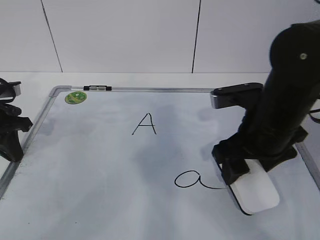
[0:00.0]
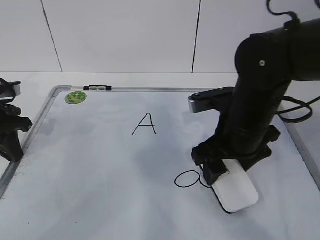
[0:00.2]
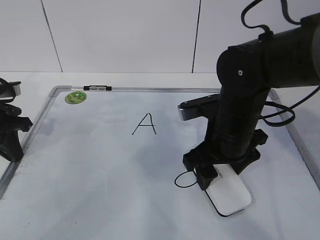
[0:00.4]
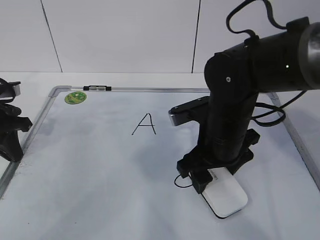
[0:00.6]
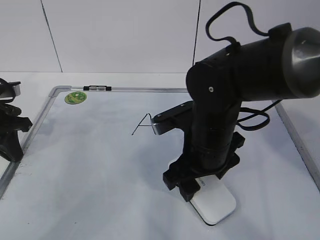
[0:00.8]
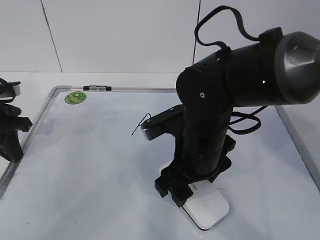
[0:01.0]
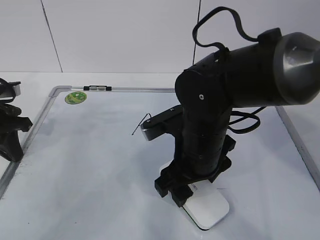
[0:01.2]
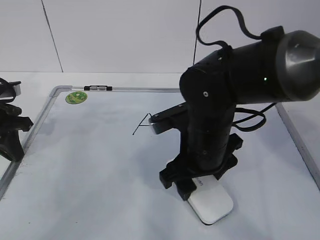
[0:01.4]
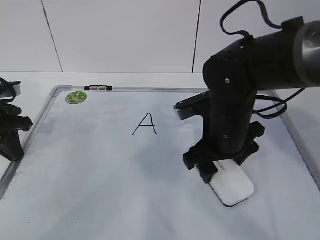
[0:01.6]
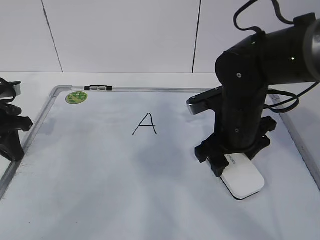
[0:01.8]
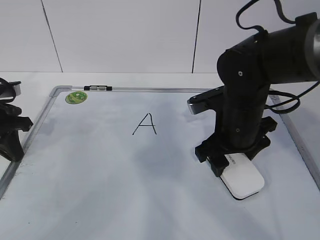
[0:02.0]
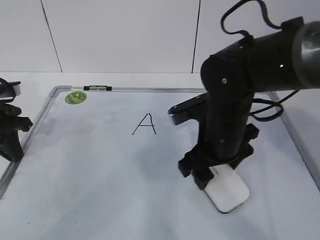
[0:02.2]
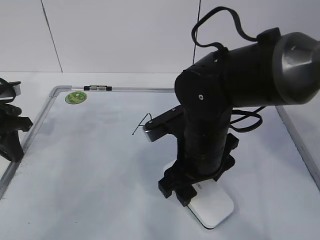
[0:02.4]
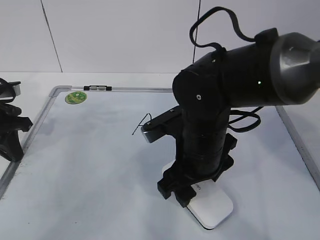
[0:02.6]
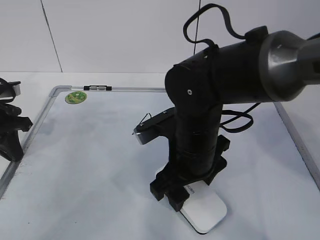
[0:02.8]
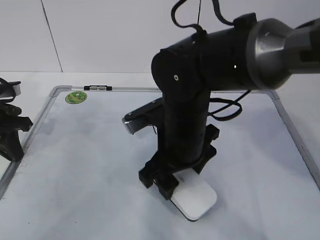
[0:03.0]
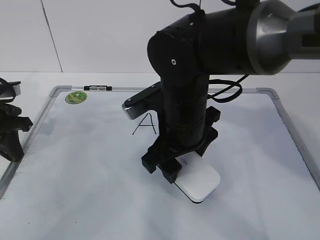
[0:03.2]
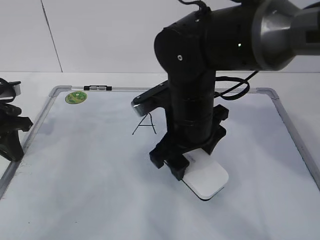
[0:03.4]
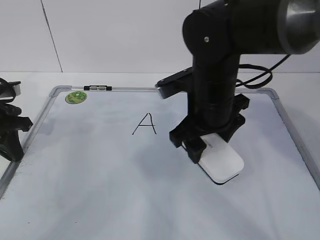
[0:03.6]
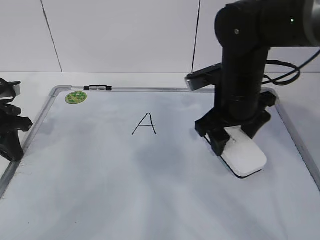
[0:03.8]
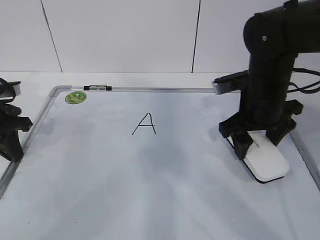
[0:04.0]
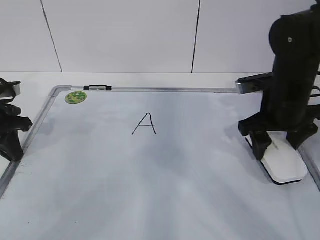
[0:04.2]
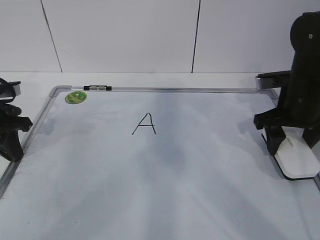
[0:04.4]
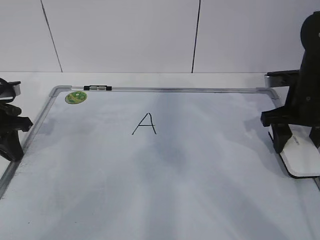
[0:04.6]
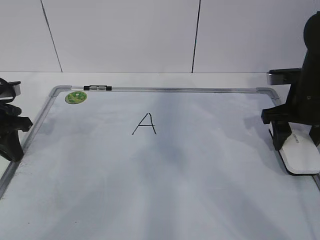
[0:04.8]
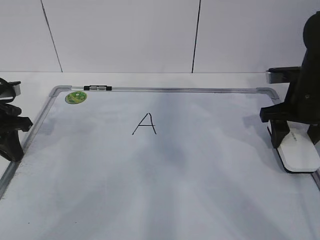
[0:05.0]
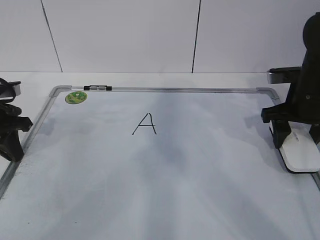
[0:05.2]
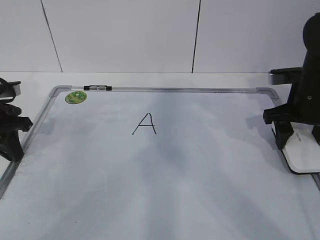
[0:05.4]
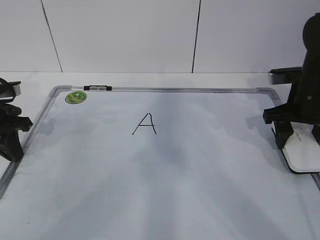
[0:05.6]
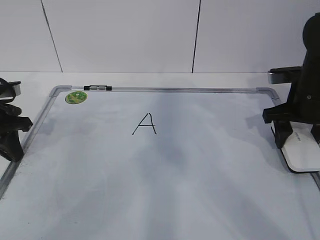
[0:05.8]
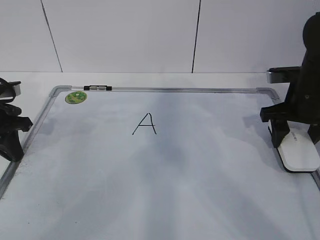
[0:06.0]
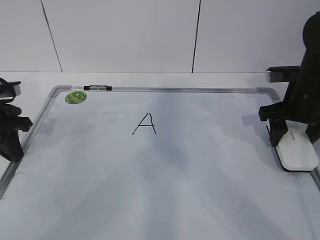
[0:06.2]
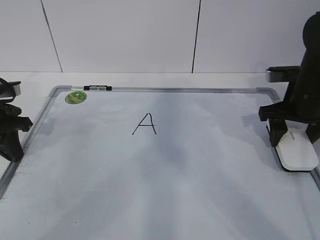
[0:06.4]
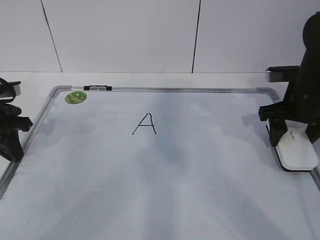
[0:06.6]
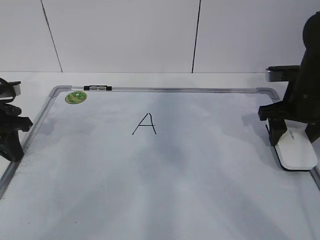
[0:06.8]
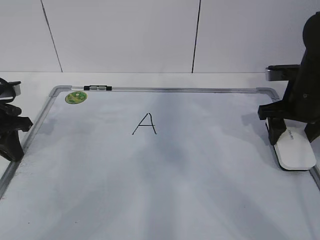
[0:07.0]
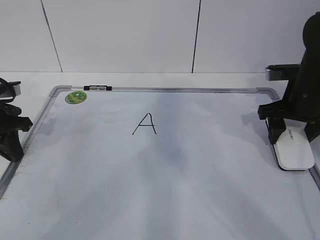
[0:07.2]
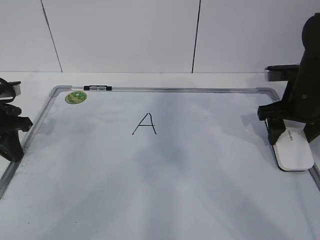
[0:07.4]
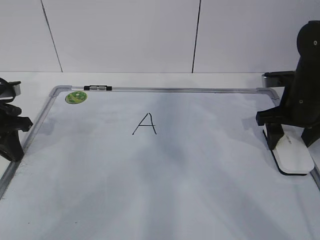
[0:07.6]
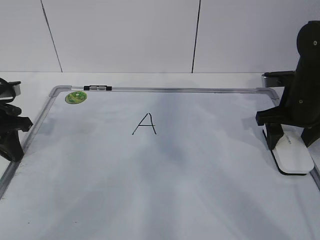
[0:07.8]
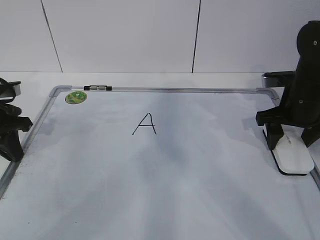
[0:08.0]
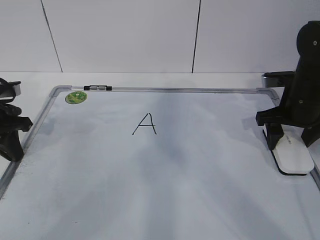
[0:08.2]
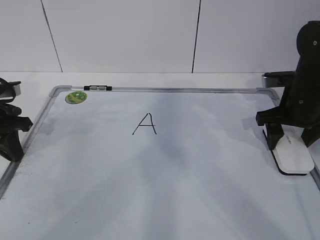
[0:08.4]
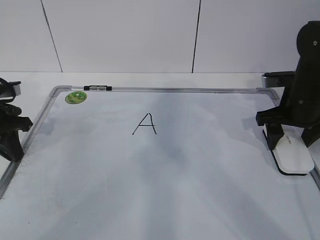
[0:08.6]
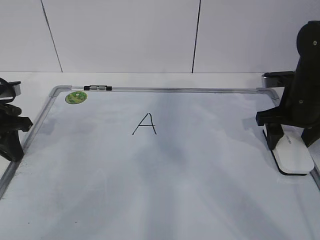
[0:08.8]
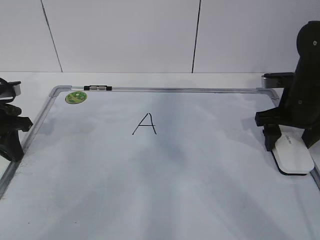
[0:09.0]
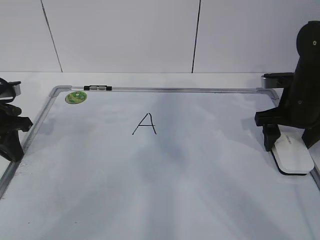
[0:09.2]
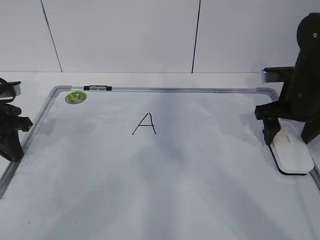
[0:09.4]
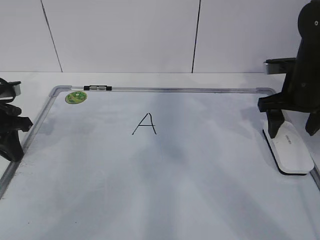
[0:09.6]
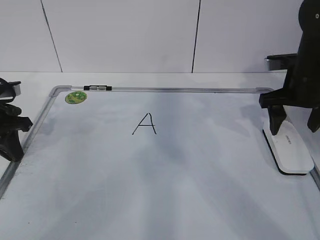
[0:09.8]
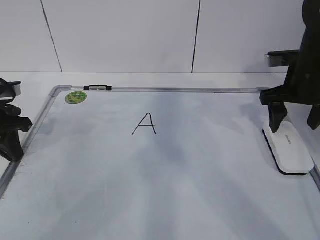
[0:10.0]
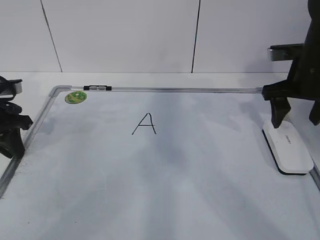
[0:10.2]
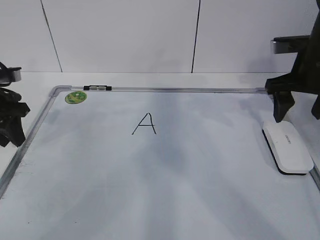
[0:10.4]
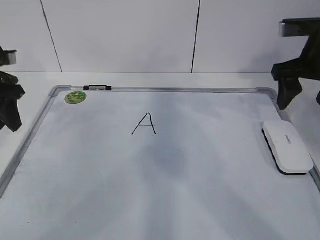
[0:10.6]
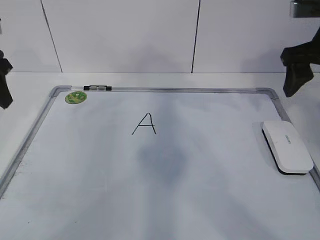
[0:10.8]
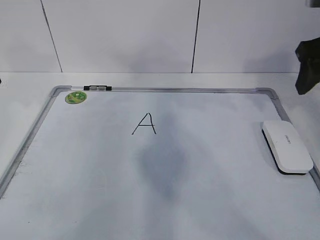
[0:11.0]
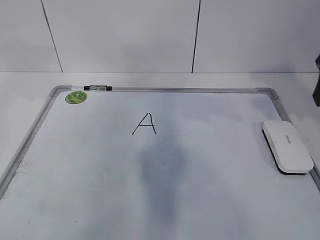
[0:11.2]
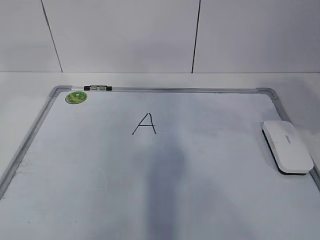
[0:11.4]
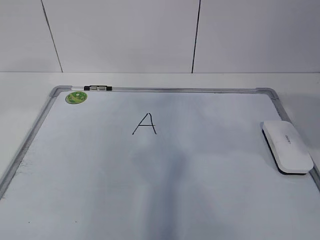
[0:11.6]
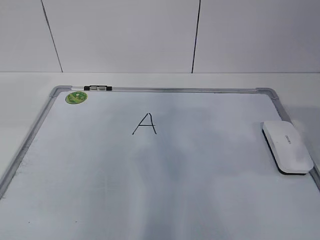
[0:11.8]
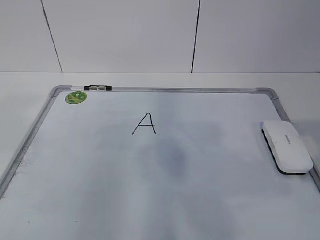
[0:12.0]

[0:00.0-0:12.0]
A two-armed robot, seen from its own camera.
Task of the whole recording: pick up the eraser on the blackboard and erase the letter "a".
Step, 0:00.0 to 0:02.0: Put down the eraser with your right hand.
0:00.0 to 0:01.6: The right gripper moves to the left, roughly 5 cm.
0:01.6 to 0:03.0: The right gripper is displaced to the left by about 5 cm.
0:03.0 to 0:04.4: The right gripper shifts approximately 20 cm to the right.
0:04.4 to 0:07.6: The grippers move only a little.
0:07.6 to 0:09.0: Both grippers stay put.
0:09.0 to 0:10.4: The left gripper opens up. The right gripper travels upward by roughly 5 cm.
0:10.4 to 0:12.0: The right gripper goes some 25 cm backward, and closes. Meanwhile the left gripper moves backward and upward, some 25 cm.

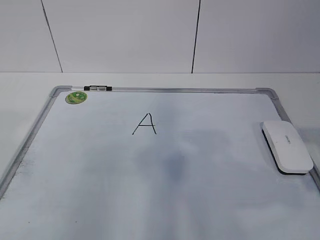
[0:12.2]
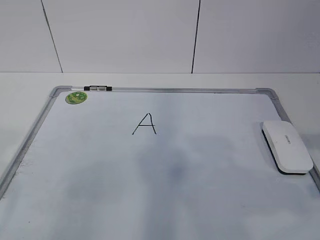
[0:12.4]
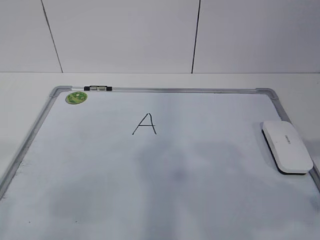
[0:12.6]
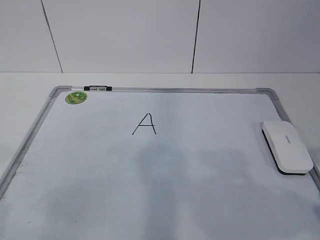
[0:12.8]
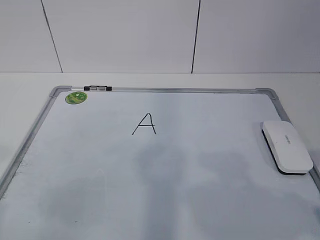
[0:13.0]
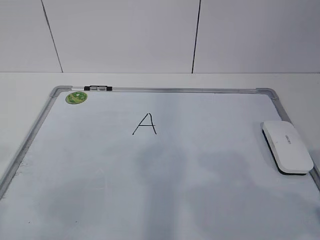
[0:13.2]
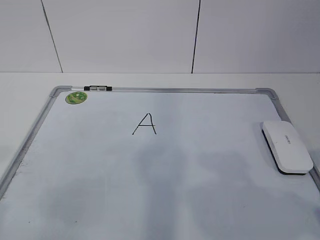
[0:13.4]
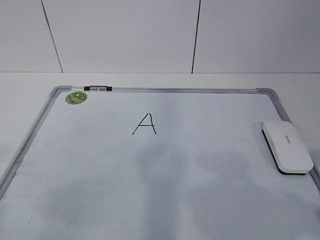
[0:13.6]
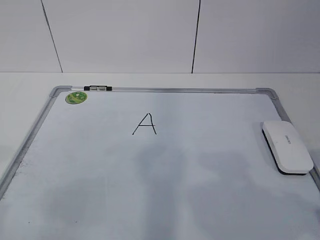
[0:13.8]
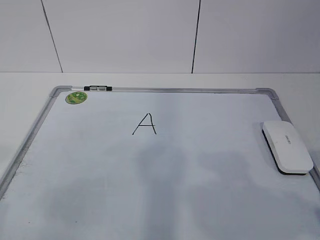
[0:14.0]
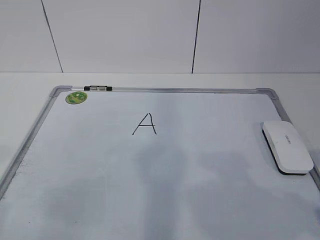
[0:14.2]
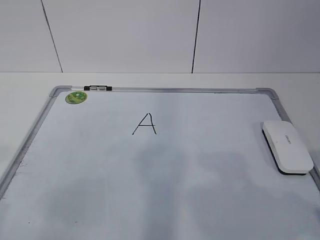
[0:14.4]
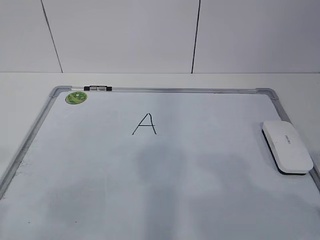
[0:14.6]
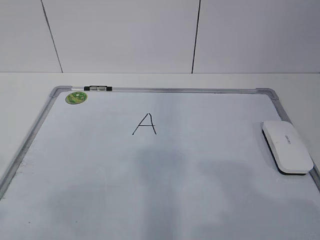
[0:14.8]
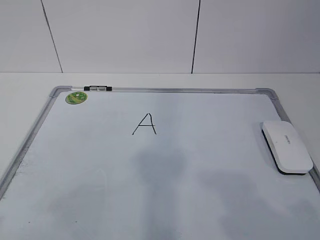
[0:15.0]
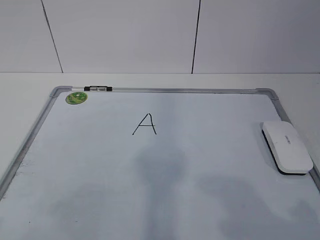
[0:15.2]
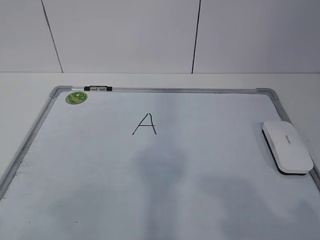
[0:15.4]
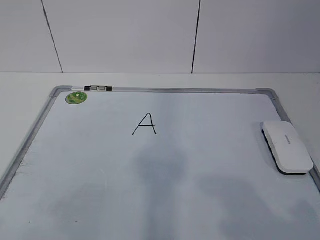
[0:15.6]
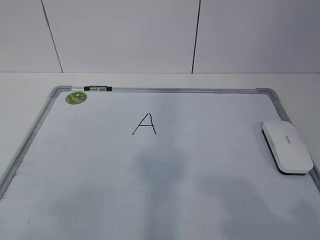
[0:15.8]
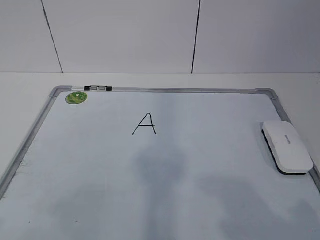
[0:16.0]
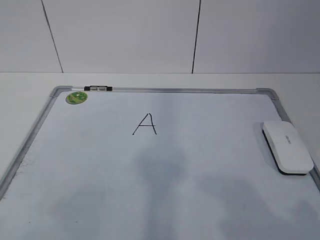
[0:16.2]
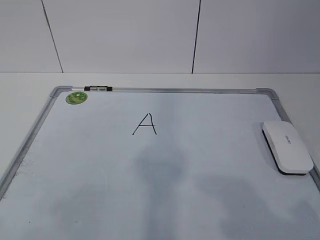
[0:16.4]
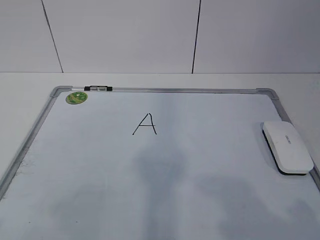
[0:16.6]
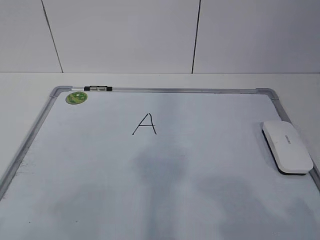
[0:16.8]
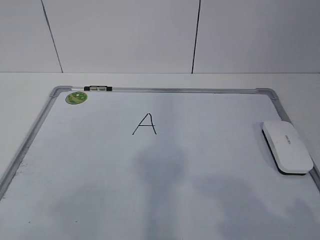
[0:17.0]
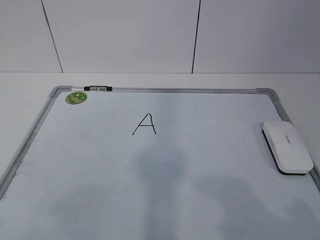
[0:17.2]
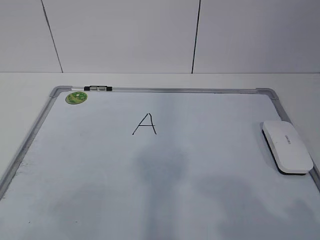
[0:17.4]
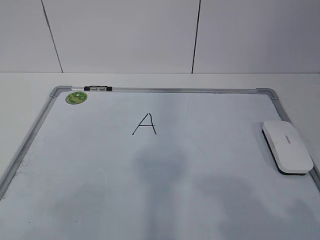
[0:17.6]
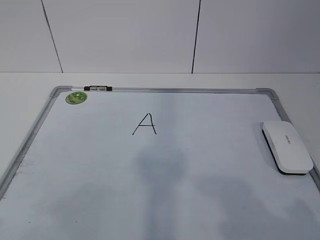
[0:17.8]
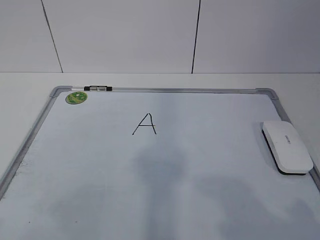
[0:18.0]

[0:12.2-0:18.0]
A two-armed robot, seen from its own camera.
Task of the whole recording: pick up the eraser on the blackboard and erase the letter "a".
0:15.0 to 0:18.0: The two grippers keep their place.

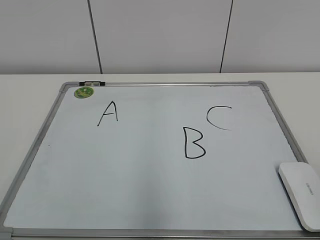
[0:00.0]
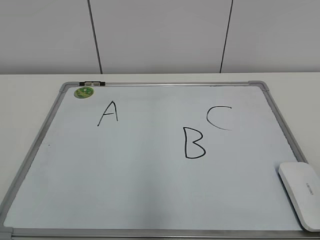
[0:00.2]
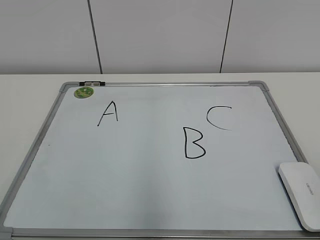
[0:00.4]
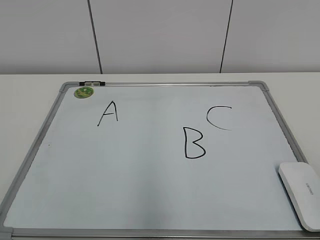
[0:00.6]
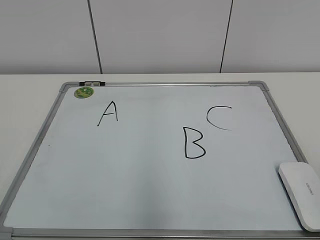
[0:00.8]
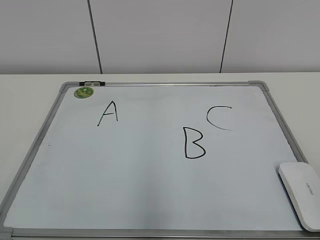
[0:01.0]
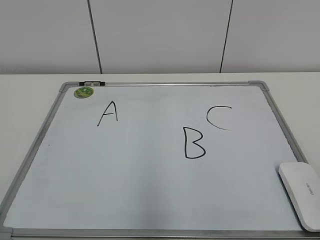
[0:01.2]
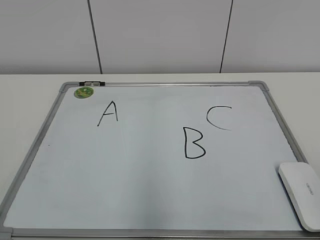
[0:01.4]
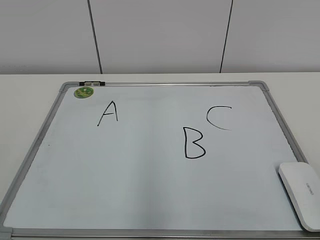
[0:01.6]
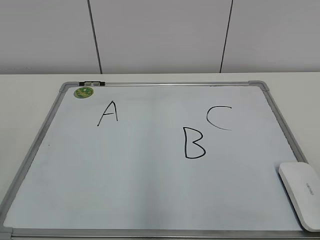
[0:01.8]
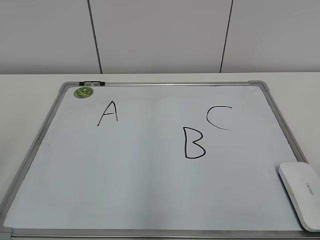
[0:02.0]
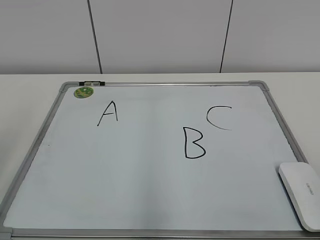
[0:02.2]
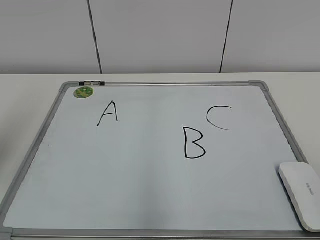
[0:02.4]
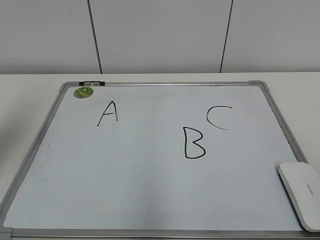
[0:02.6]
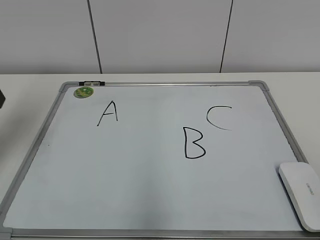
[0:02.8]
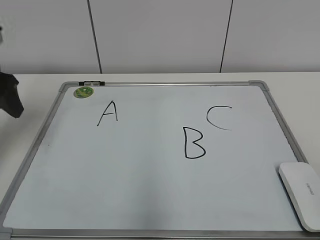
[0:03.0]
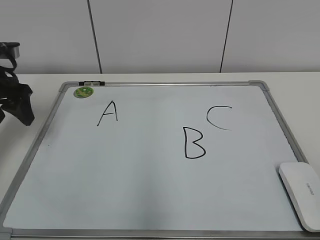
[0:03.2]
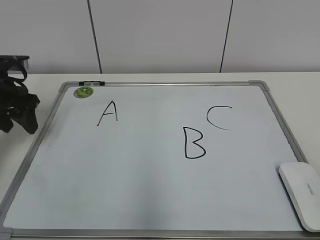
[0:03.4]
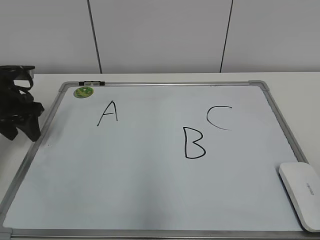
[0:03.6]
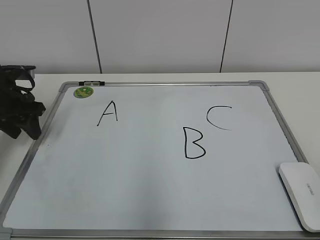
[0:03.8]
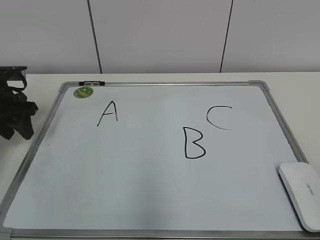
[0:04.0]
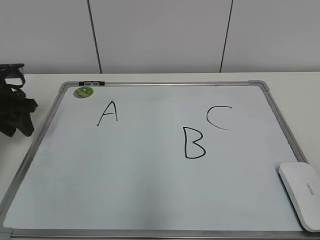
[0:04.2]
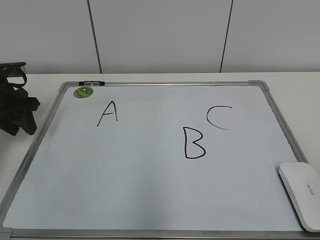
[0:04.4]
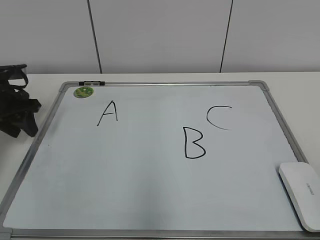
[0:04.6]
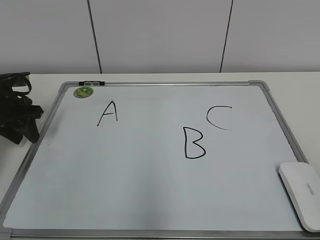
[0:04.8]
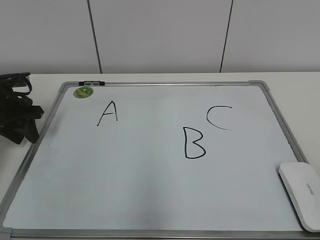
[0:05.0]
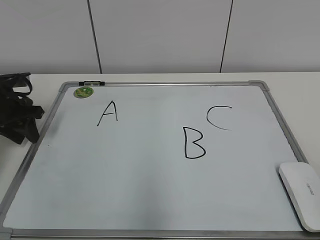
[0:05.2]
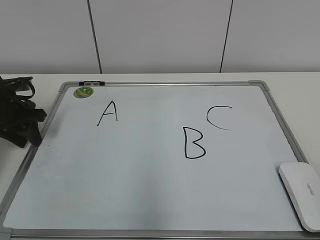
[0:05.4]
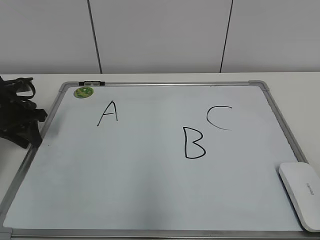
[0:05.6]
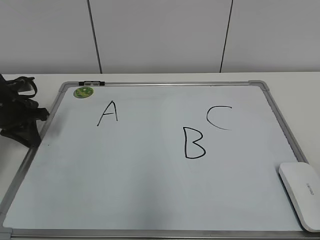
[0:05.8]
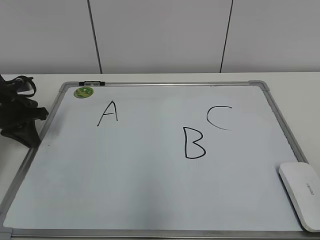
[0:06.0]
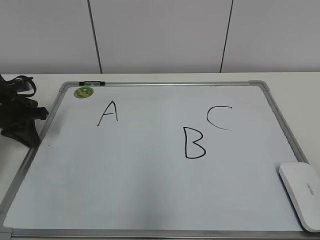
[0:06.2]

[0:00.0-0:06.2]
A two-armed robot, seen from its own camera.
Task of the whole recording: pick up the eraser on the blackboard and erase the letter "B".
0:01.6 to 0:03.2: The left gripper shifts some 35 cm forward.
0:03.2 to 0:04.6: The left gripper shifts about 5 cm downward.
0:04.6 to 0:06.2: The left gripper closes its fingers.
